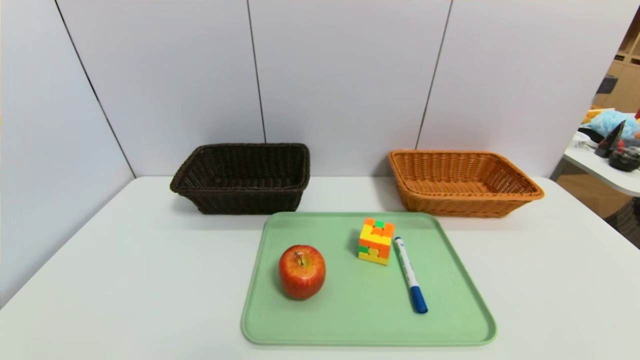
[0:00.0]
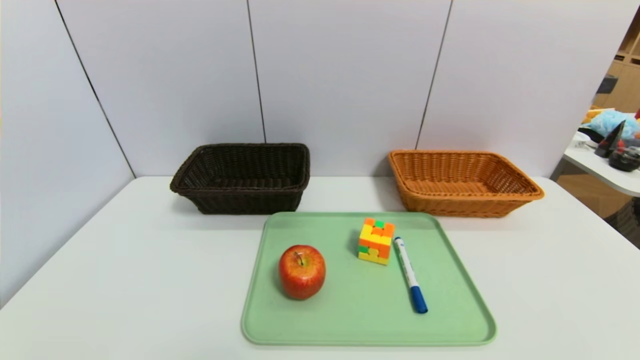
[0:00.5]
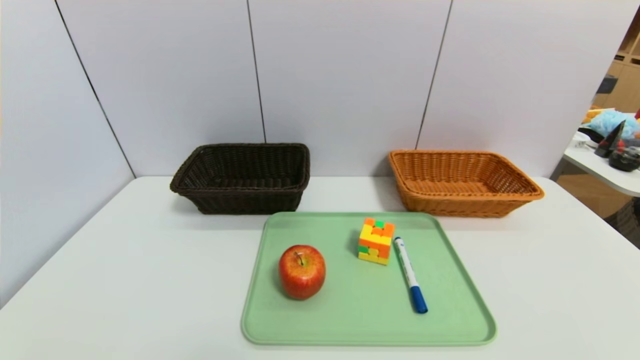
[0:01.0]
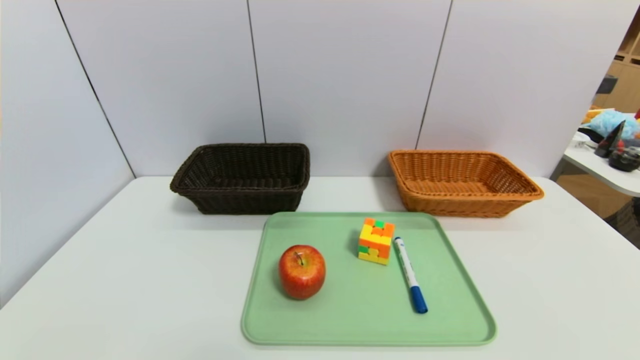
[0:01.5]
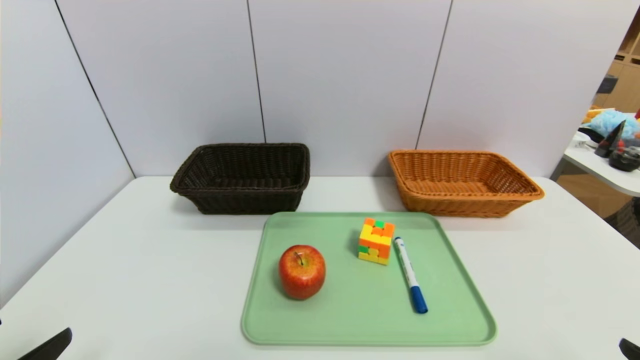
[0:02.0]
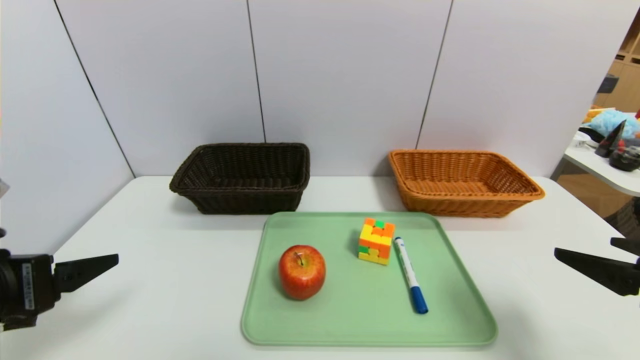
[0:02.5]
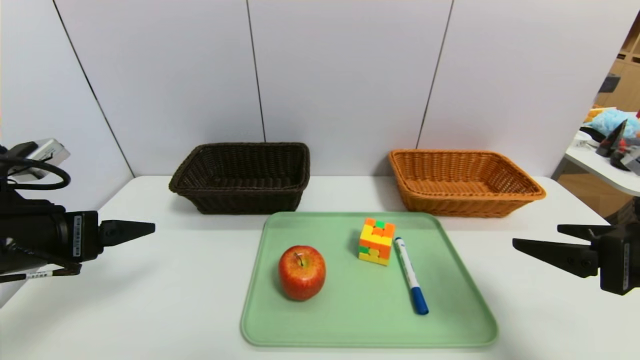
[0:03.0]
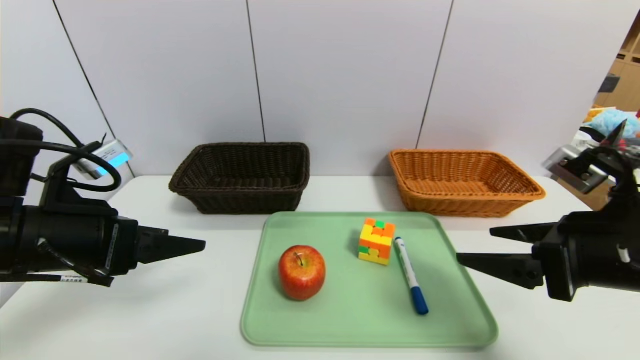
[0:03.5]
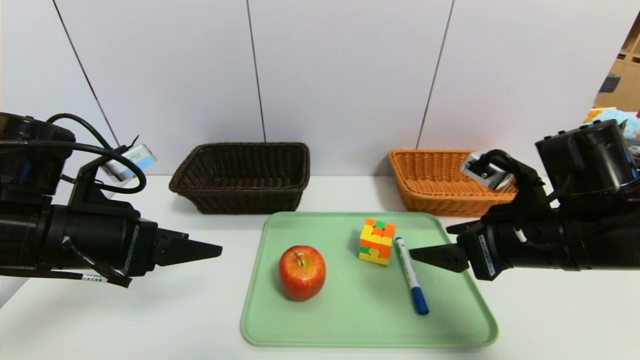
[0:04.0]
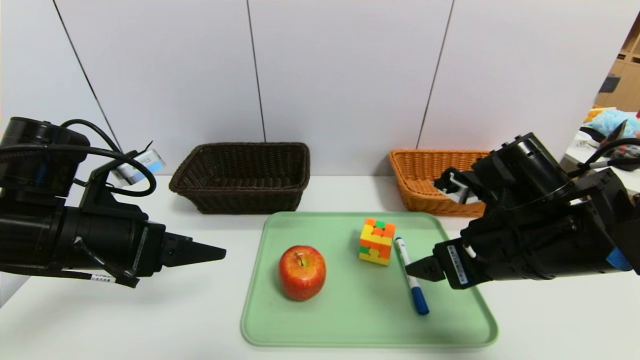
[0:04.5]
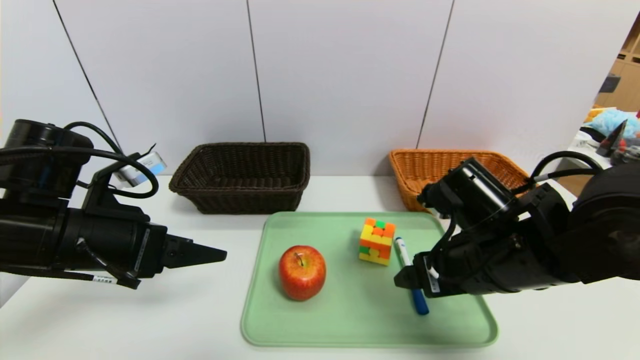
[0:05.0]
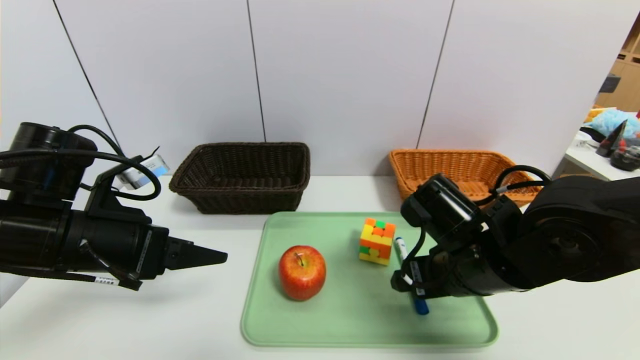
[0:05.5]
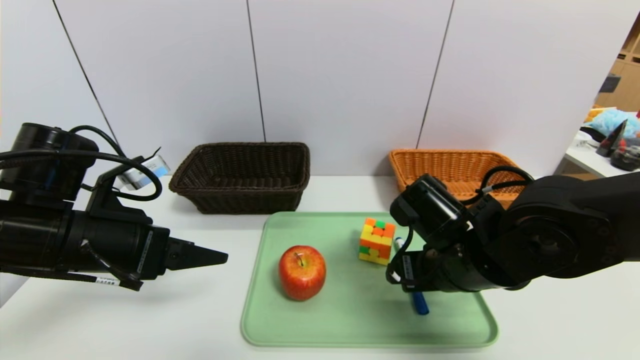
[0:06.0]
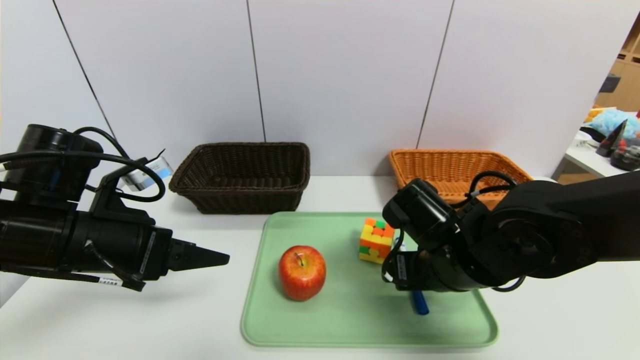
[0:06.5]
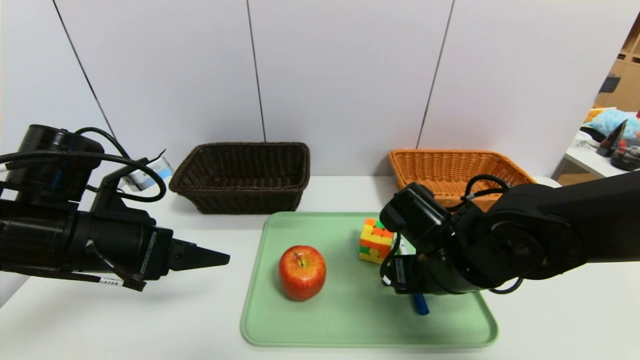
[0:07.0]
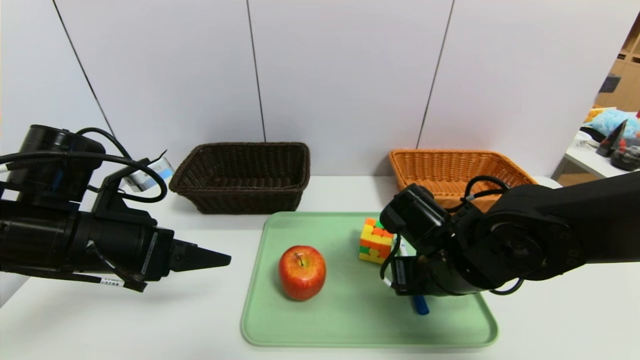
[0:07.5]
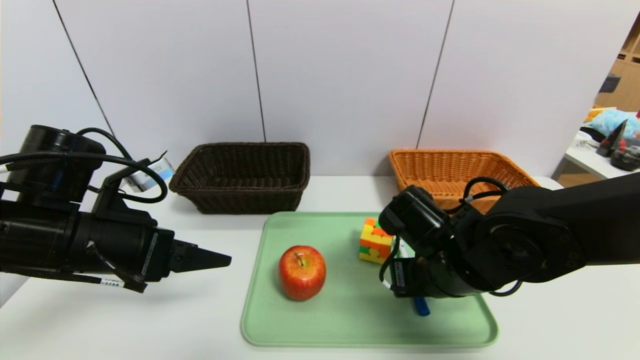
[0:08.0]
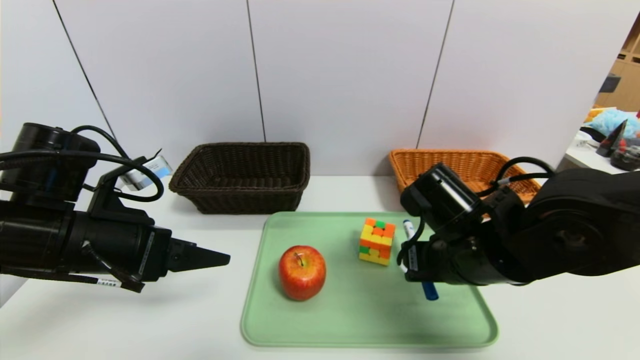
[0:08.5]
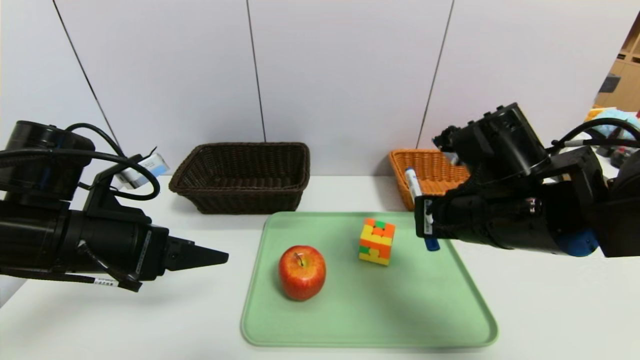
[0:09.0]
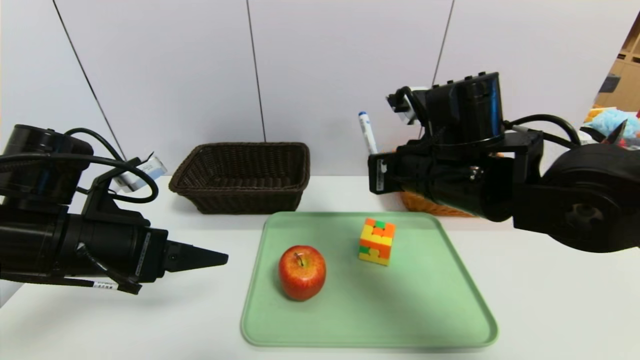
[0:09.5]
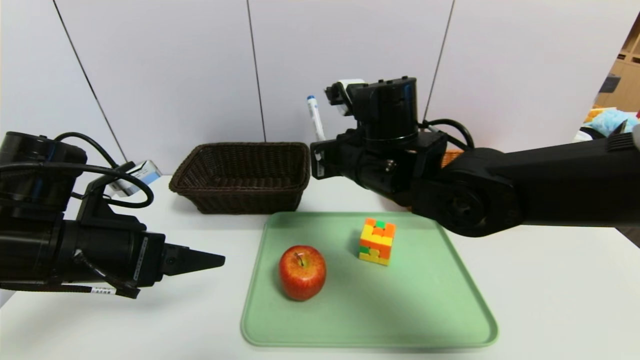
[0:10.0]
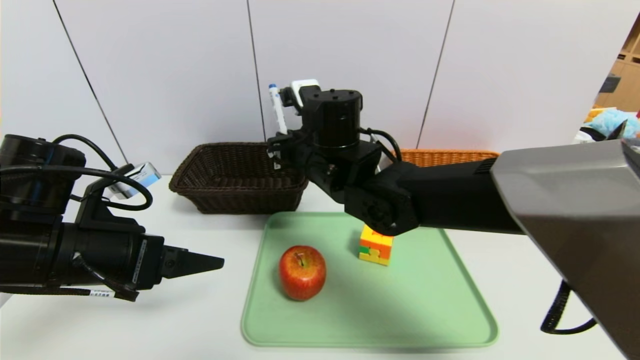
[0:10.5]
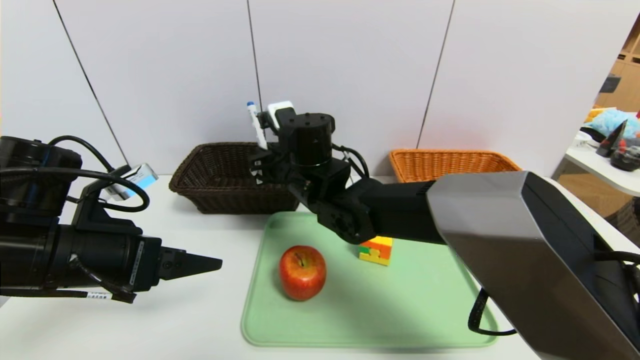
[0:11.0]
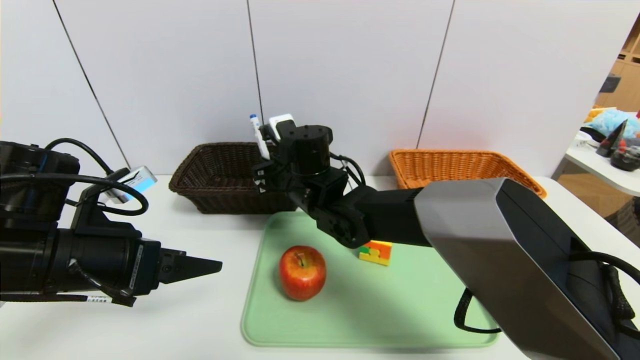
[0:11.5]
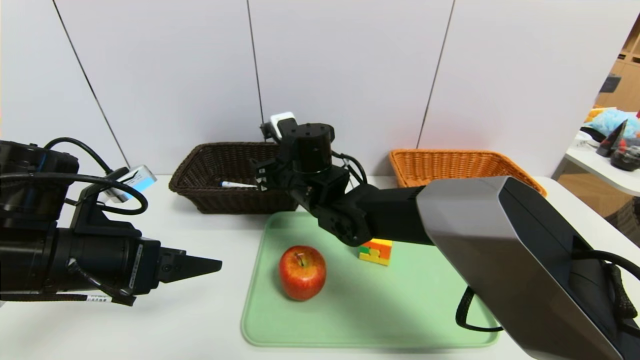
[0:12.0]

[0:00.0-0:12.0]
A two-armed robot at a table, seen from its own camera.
Task of the whole recording: place the food in the right basket with the right gripper, and place the non food items in the left basket with the left gripper.
Step, 0:00.0 to 0:12.0: Grasp the blue marker pen and put it in the left basket.
0:02.0 to 0:04.0: The left gripper shifts roughly 20 cm forward. Meanwhile the right gripper moves forward and to the left, approximately 20 cm.
0:04.0 to 0:06.0: The right gripper moves to the left and downward, roughly 10 cm.
0:06.0 to 0:08.0: The right gripper closes.
0:08.0 to 0:10.0: The right gripper heads upward, to the left and forward, covering about 15 cm.
0:10.0 to 0:12.0: The right gripper goes roughly 15 cm to the left, downward and forward, and opens up.

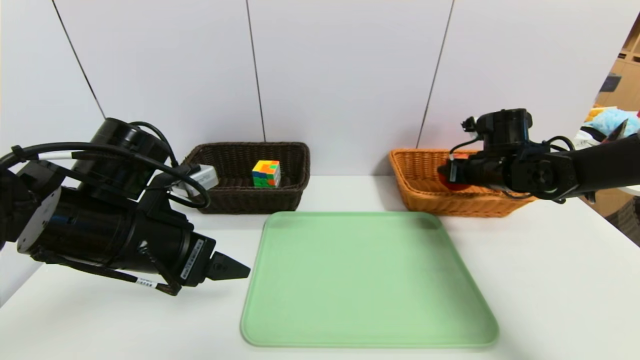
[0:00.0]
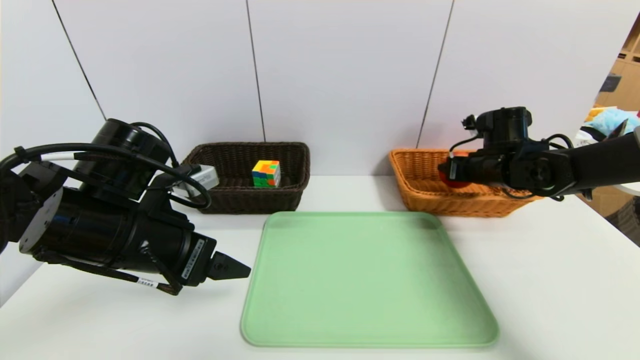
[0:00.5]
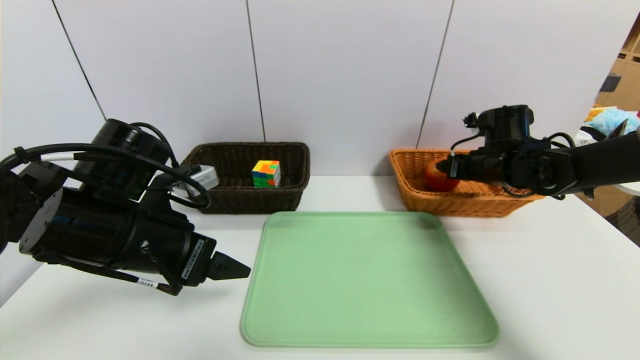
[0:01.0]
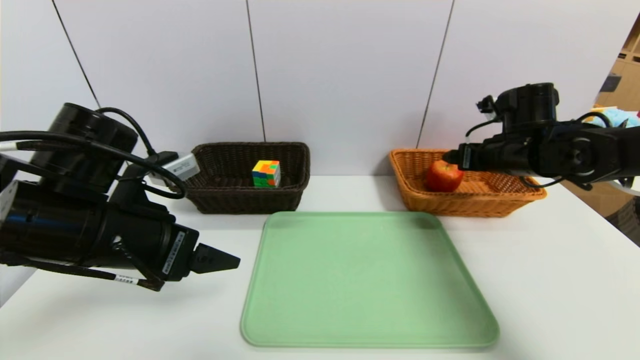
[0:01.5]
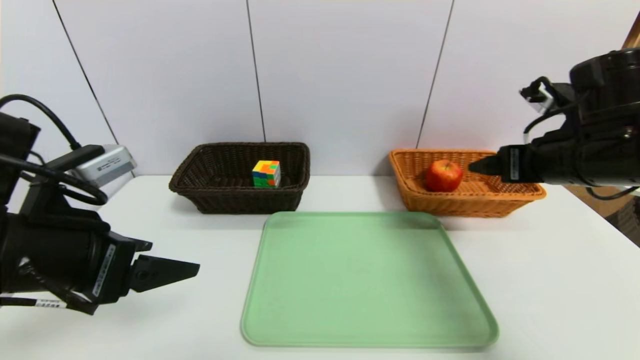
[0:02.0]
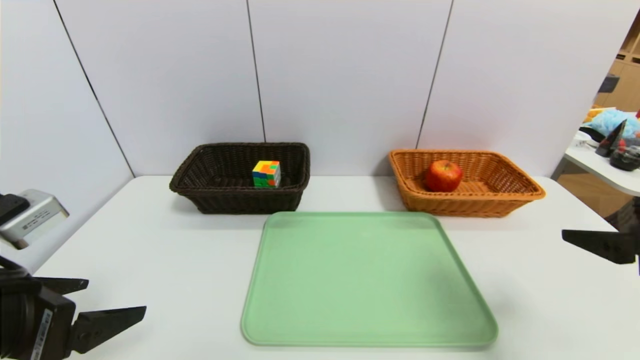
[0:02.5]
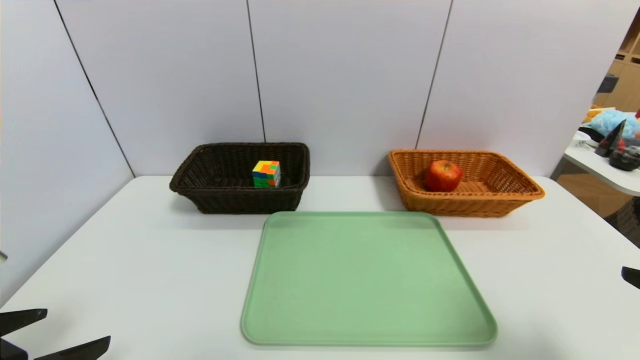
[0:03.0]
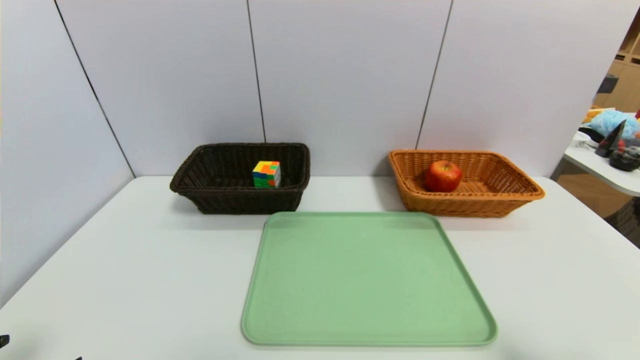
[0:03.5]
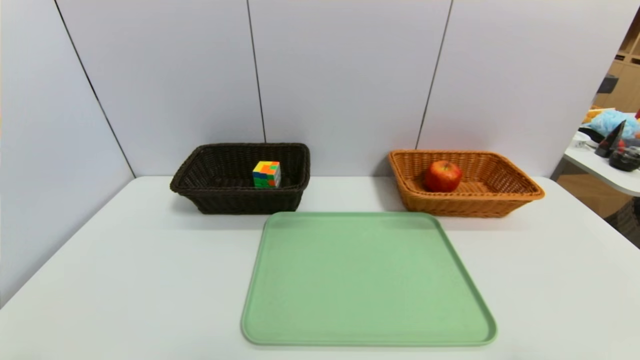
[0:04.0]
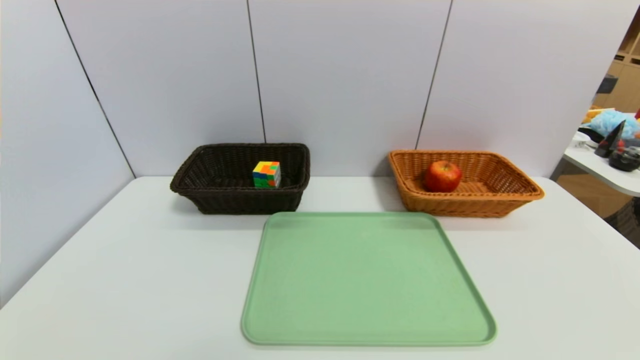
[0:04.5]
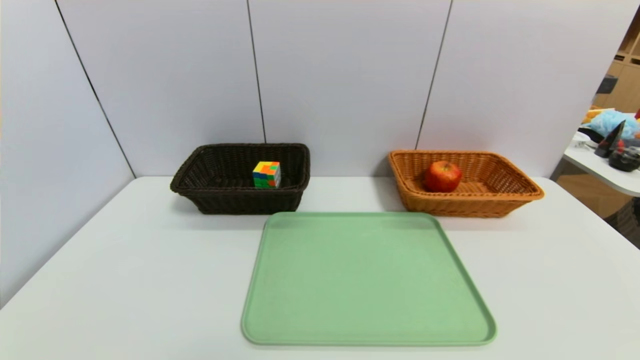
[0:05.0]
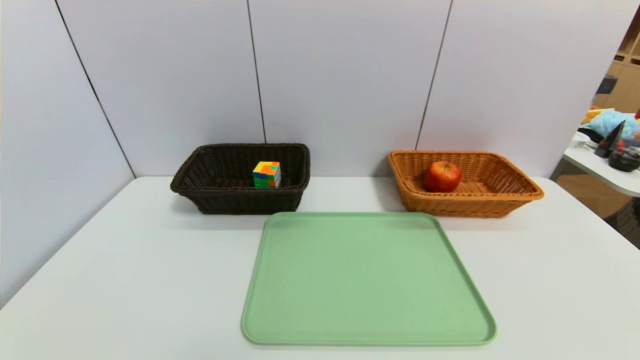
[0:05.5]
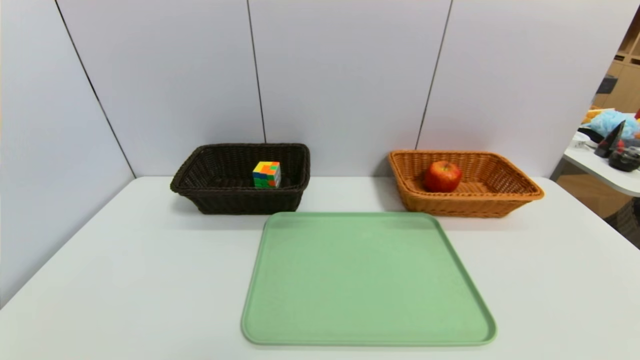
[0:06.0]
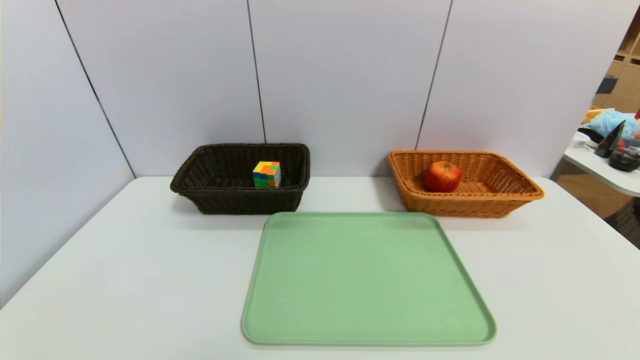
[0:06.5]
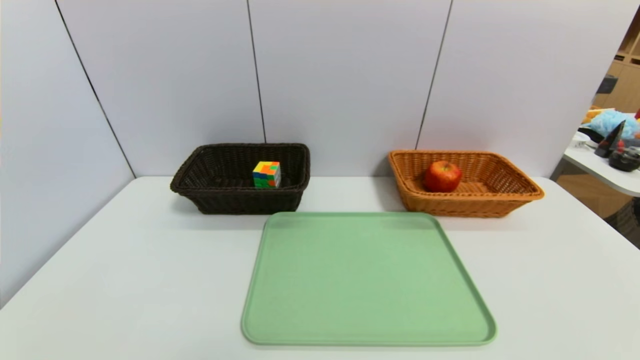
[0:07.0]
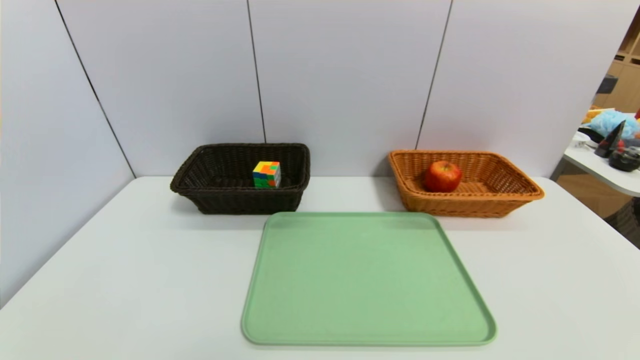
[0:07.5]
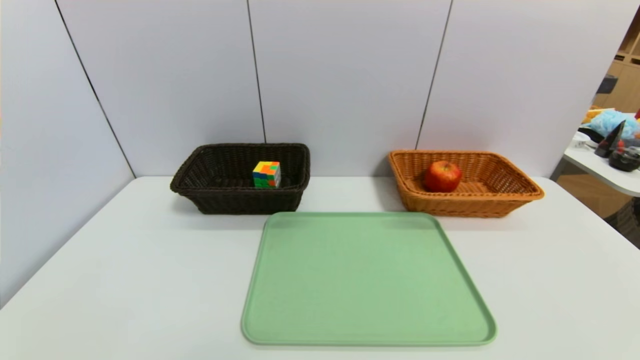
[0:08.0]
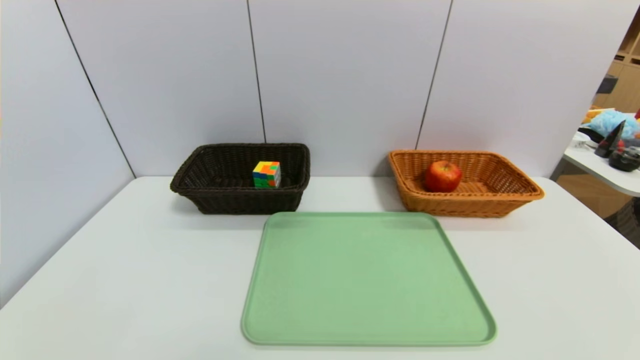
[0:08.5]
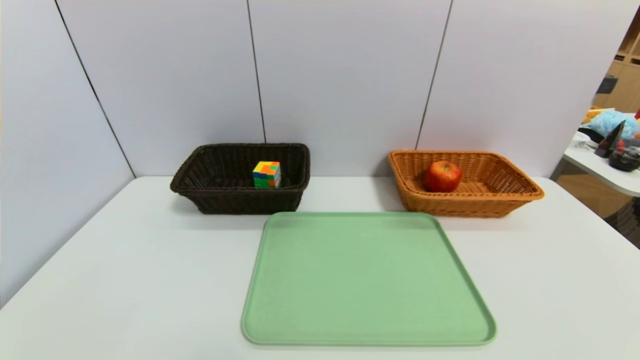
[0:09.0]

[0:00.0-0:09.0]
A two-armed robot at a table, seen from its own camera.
Task of the whole recording: place the food in the right basket with the right gripper, and place the non food items in the left basket with the left gripper.
0:00.0 to 0:02.0: The left gripper moves backward, about 5 cm; the right gripper is displaced backward and upward by about 15 cm.
0:02.0 to 0:04.5: The left gripper travels backward and downward by roughly 20 cm, while the right gripper moves backward, about 30 cm.
